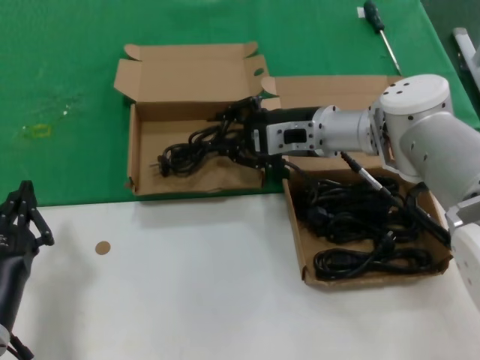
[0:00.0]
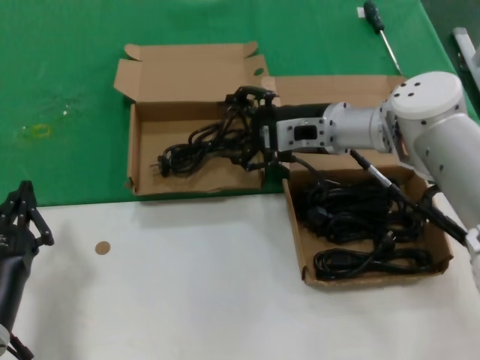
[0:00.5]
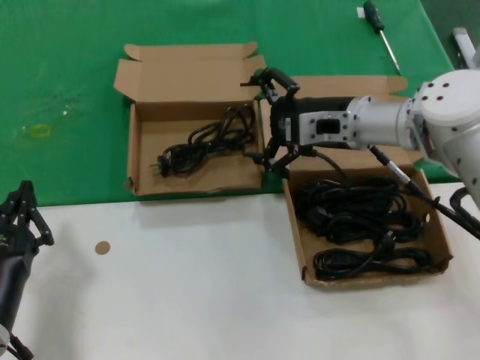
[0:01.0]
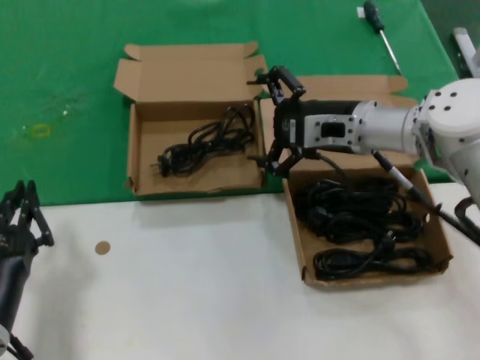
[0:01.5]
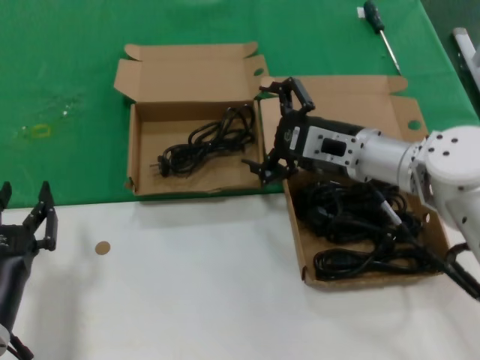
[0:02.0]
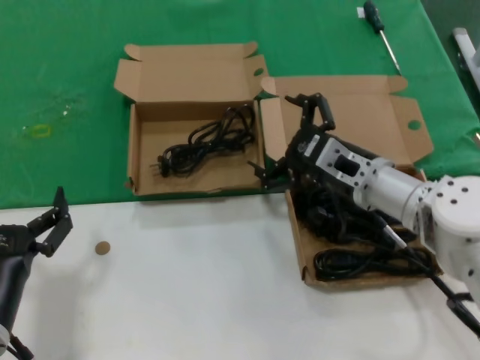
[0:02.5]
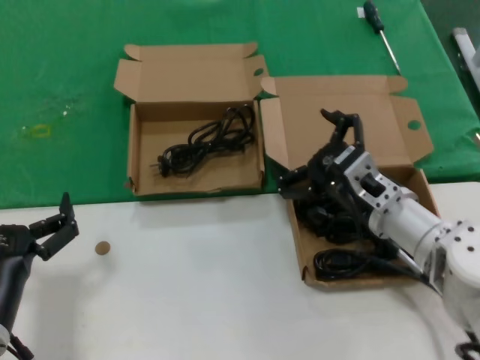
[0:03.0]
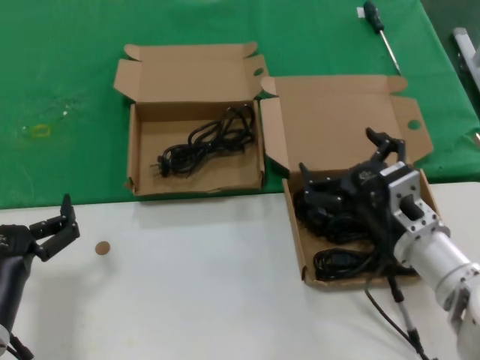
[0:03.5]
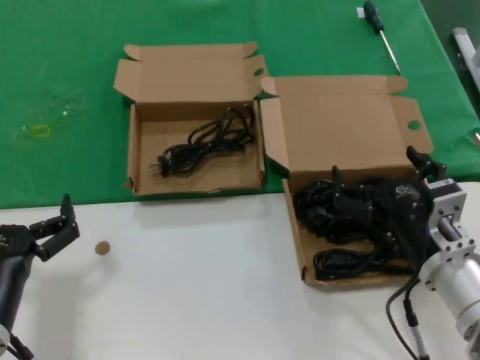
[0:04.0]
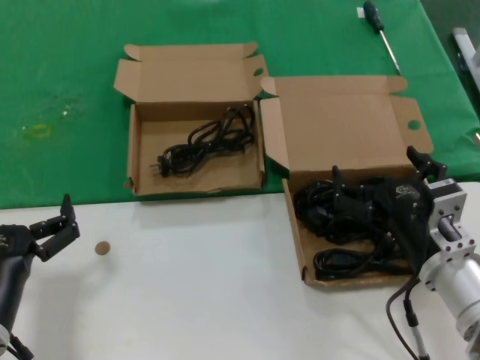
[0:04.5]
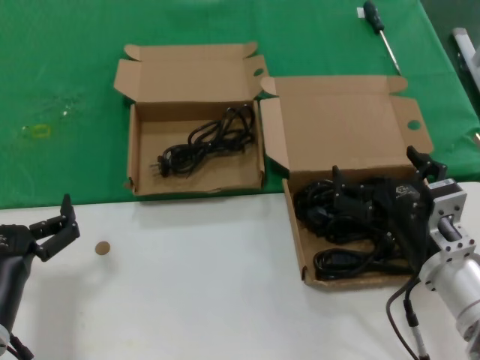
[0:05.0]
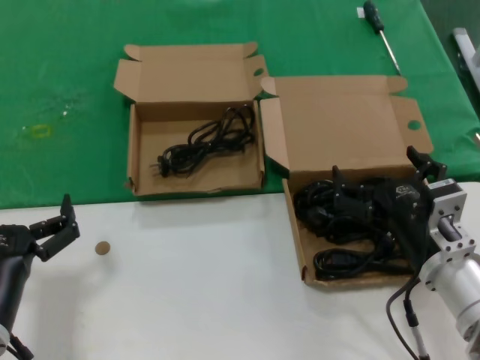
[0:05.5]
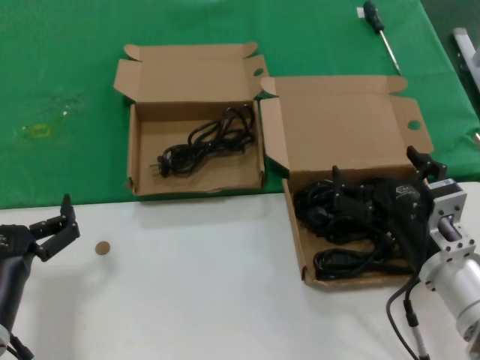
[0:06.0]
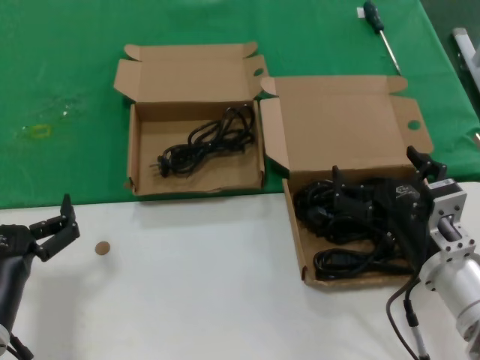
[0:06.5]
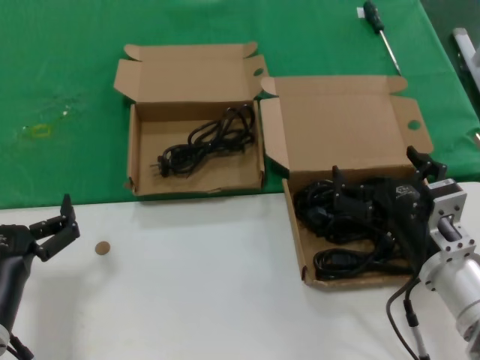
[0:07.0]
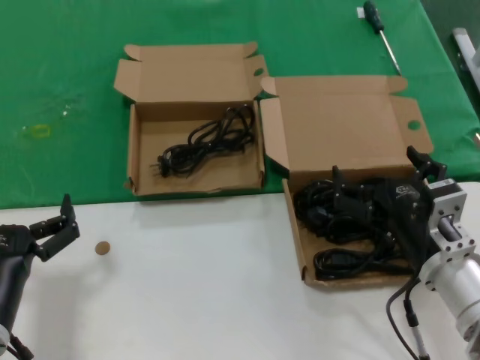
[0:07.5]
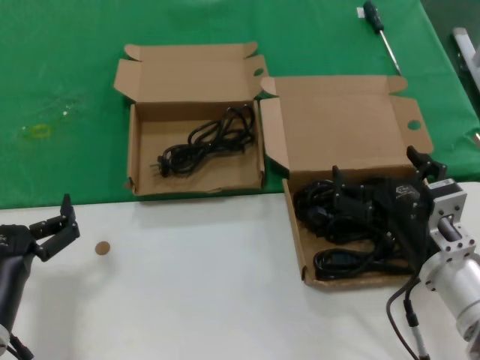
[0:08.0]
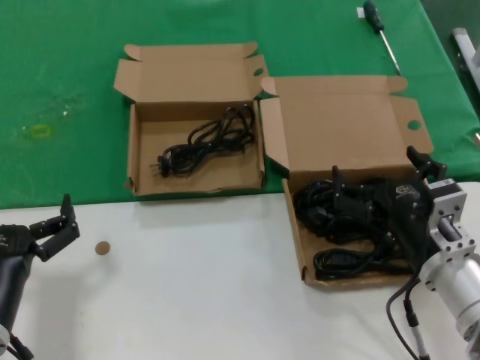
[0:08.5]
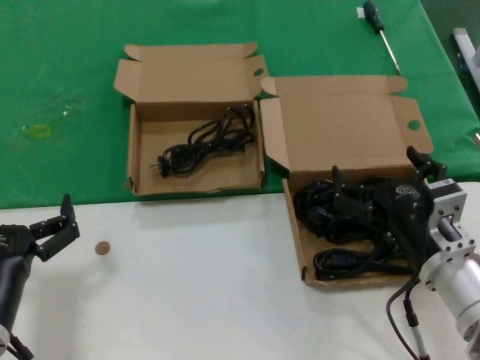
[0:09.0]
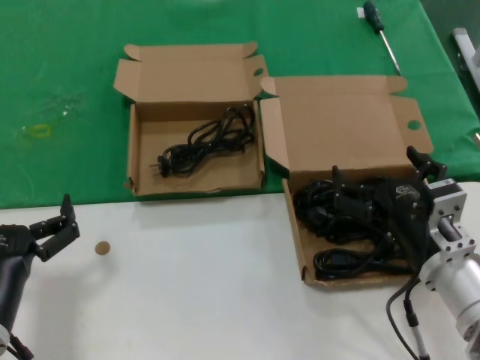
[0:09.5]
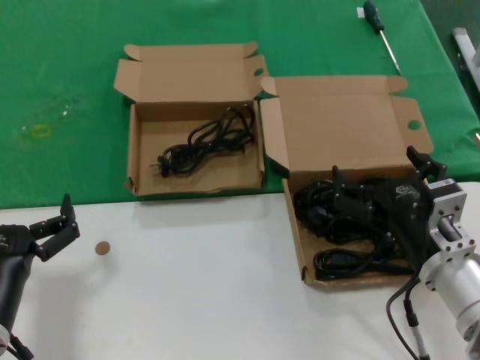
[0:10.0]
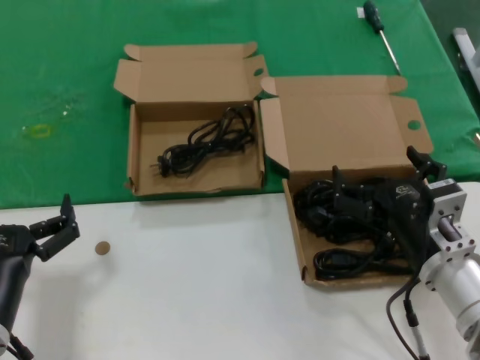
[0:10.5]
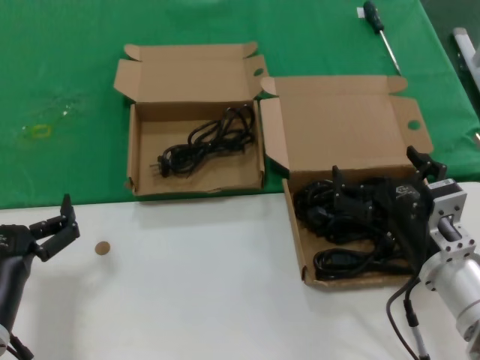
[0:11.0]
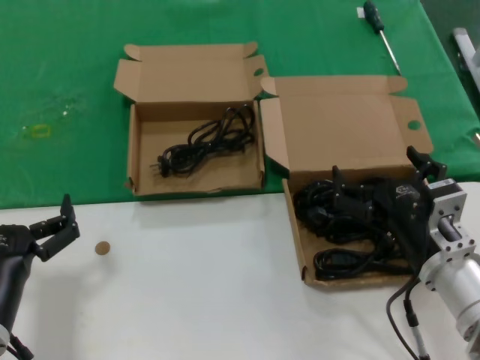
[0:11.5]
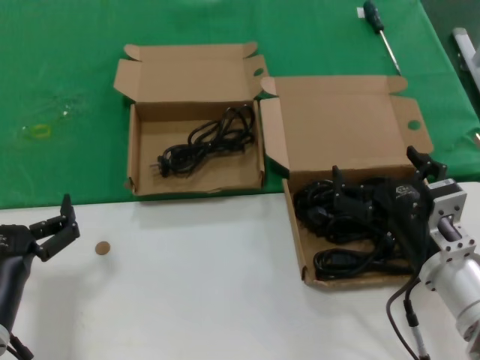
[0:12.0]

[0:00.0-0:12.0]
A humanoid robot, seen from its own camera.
Task of the whole recording: take the parts from the box containing them and put them into an empty box.
0:00.0 to 0:02.0: The right hand moves backward, roughly 5 cm.
0:02.0 to 0:04.0: The right hand heads backward and downward, covering about 20 cm.
0:04.0 to 0:12.0: The two hands keep their place.

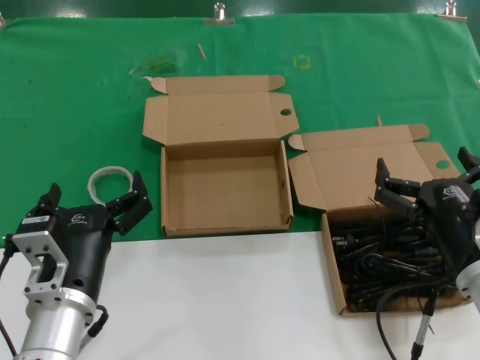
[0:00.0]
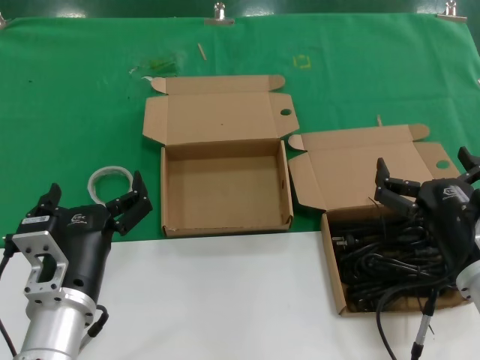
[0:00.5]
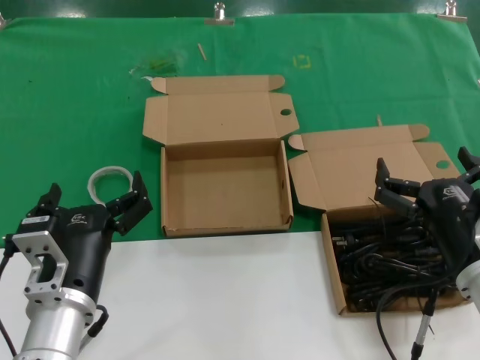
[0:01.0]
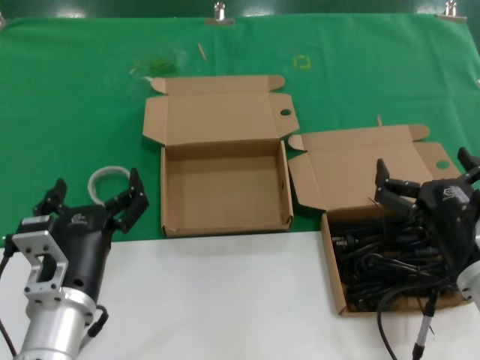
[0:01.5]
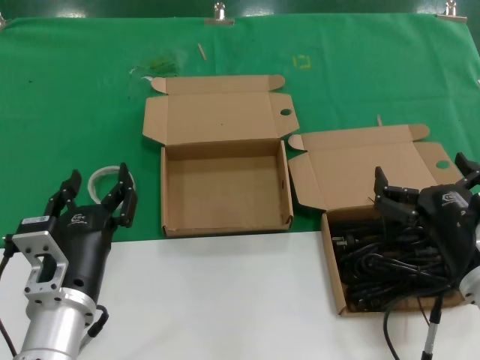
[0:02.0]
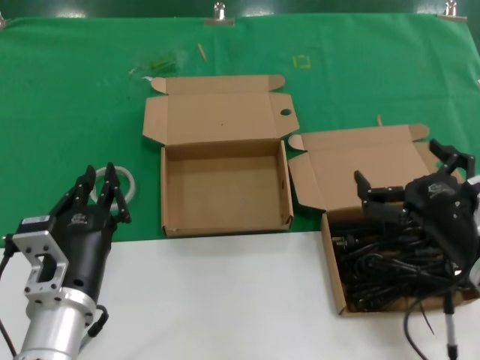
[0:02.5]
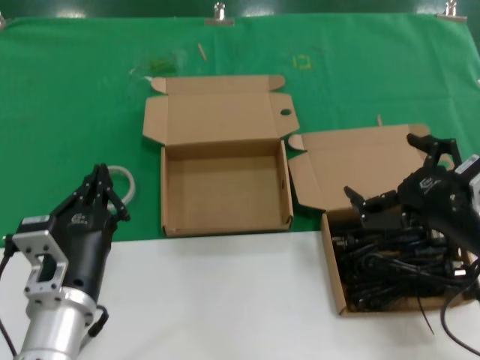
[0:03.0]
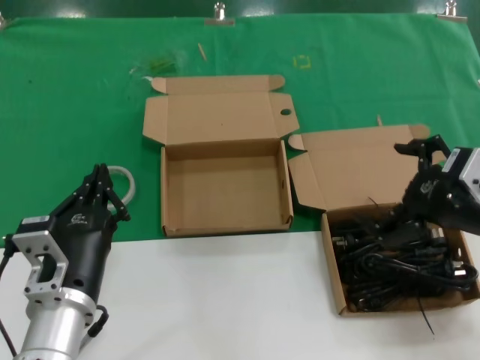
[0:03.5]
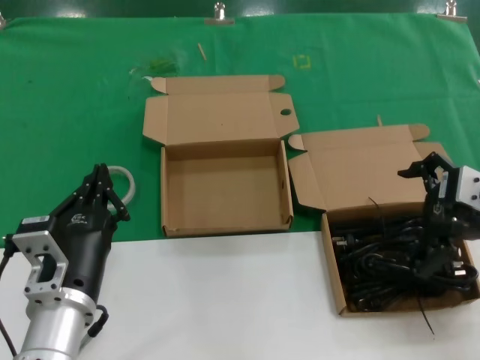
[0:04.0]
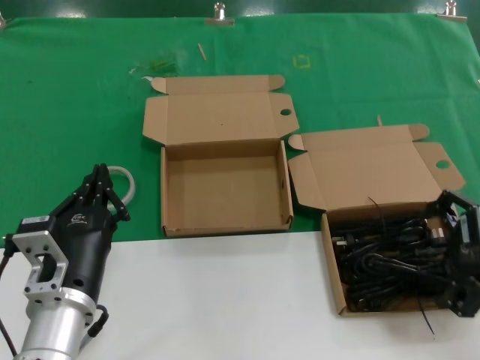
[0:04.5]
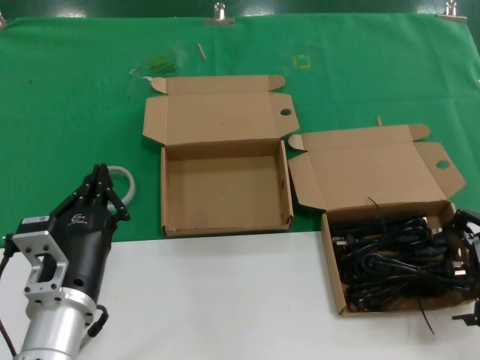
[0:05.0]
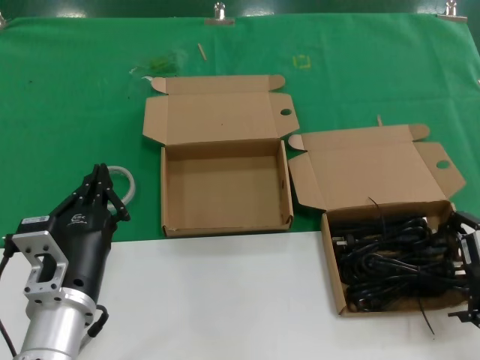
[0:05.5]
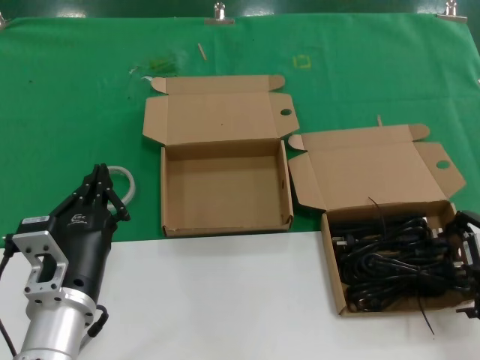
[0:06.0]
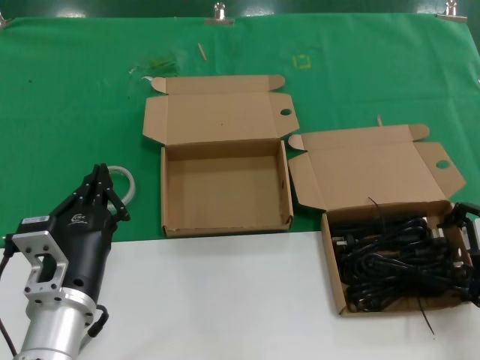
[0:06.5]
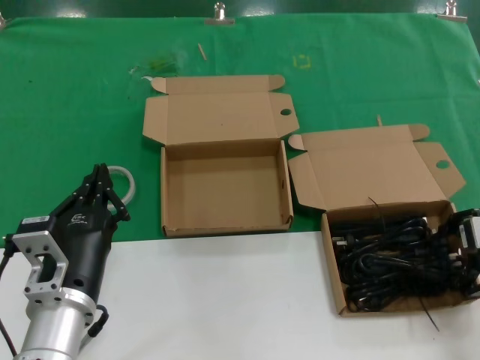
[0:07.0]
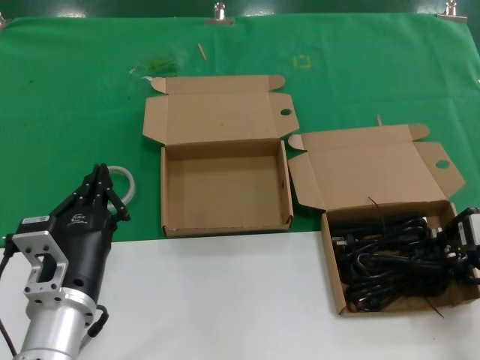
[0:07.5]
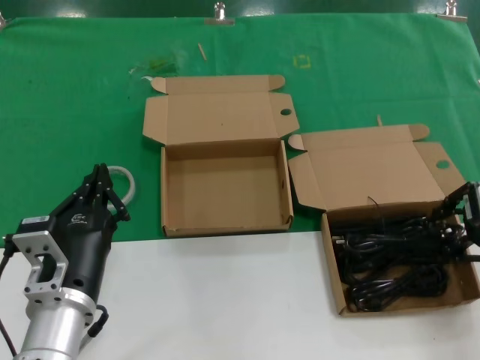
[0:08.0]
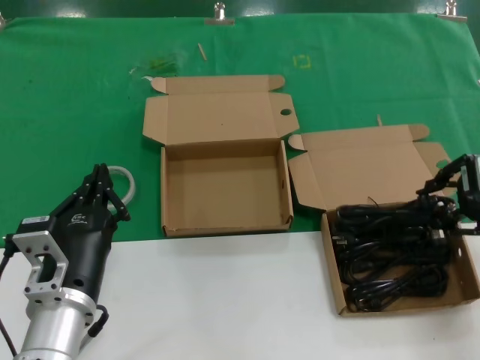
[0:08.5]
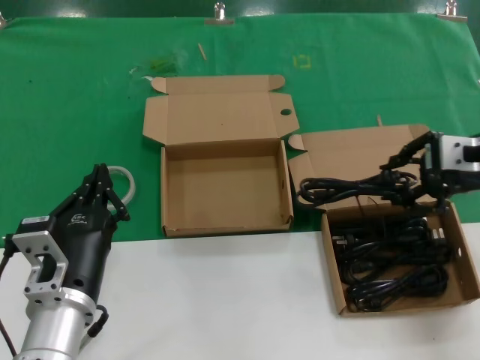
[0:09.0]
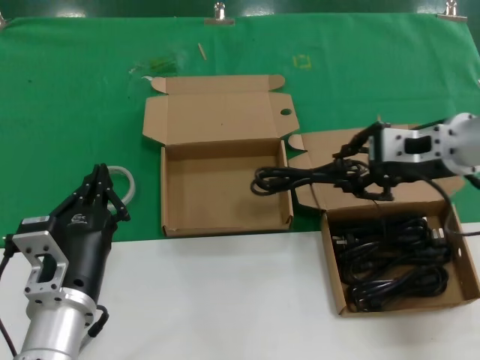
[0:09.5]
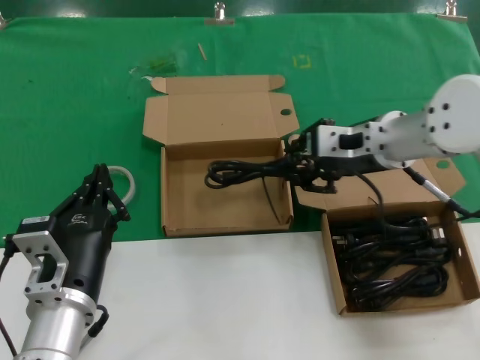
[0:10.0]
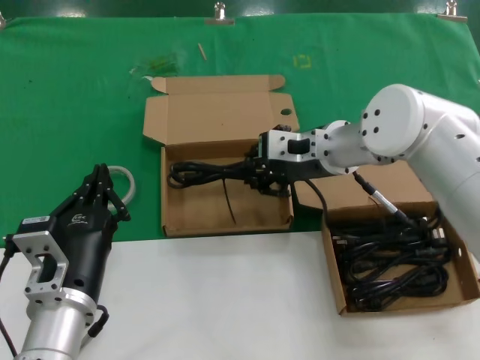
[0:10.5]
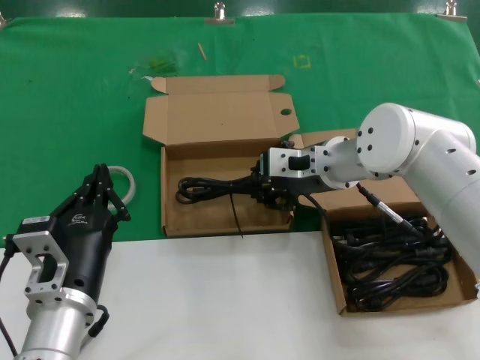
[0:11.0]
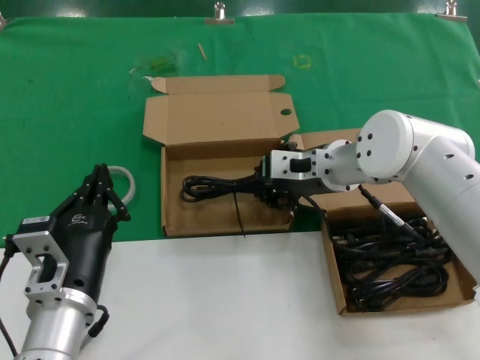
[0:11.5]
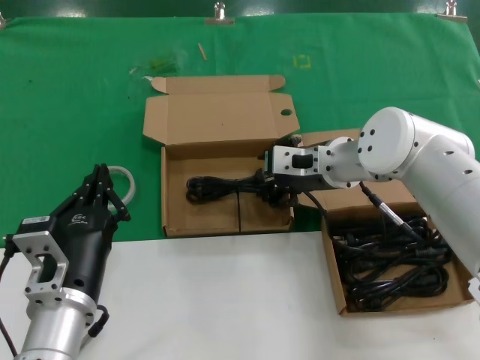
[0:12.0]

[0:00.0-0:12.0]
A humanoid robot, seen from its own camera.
Task of the whole recording: take the parts from the box containing them and put them into an empty box.
Step, 0:00.0 to 0:07.0: Grasp the data cable.
Step, 0:07.5 to 0:12.0: Place the data cable in the another box.
0:00.0 to 0:02.0: Both hands stay about where they are.
0:02.0 to 0:04.0: The right hand is displaced upward, to the right and forward by about 15 cm.
0:04.0 to 0:06.0: The right hand moves downward, approximately 5 cm.
0:06.0 to 0:08.0: There are only small adjustments of the hands.
0:08.0 to 0:10.0: The right hand goes about 20 cm to the left and forward.
0:10.0 to 0:12.0: The right hand goes about 10 cm downward and to the left.

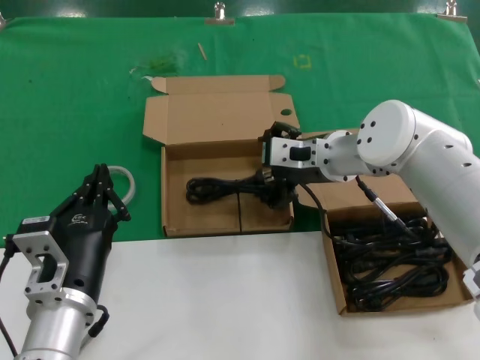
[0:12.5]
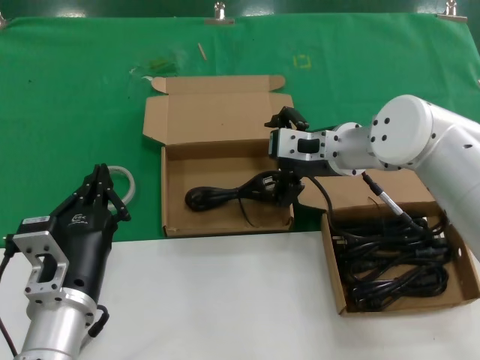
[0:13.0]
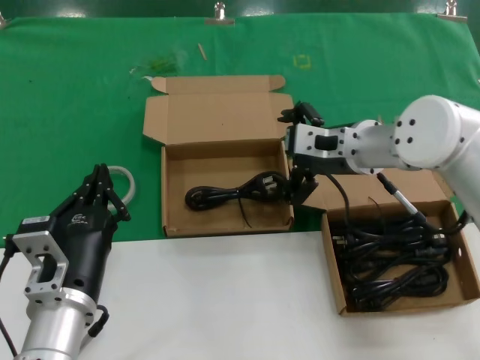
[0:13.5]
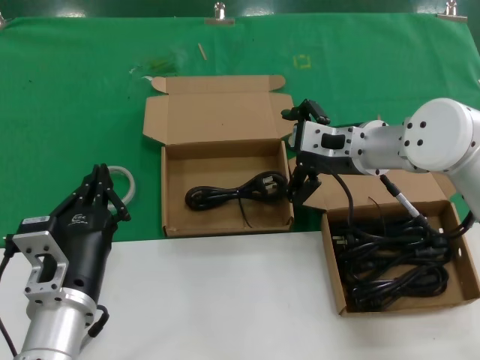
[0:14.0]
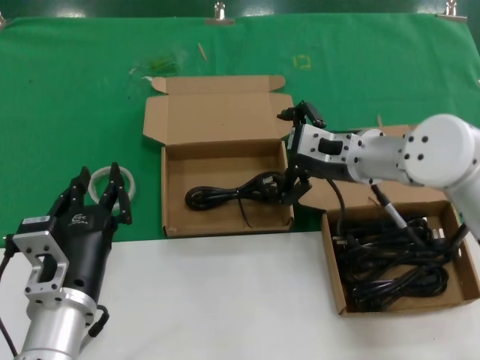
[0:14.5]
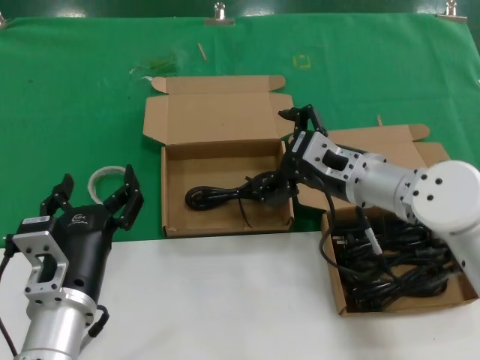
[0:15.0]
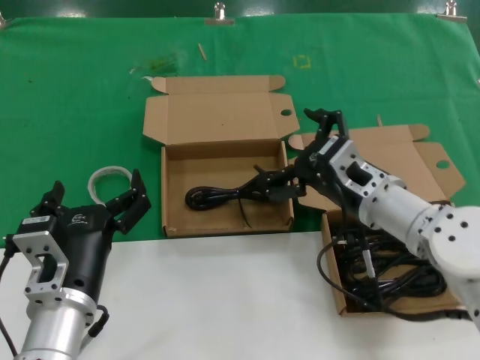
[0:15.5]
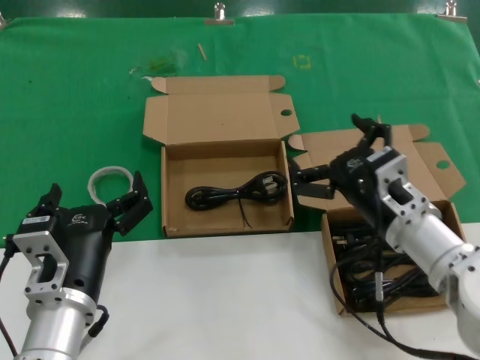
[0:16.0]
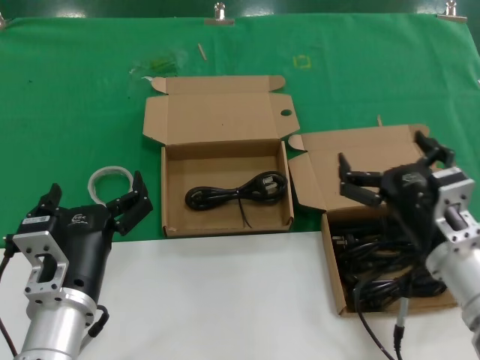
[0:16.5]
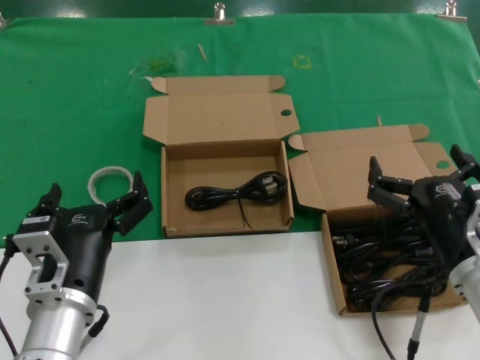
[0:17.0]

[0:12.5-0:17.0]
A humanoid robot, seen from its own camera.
Task of the whole recording: take the parts from the box containing them and put them into an empty box.
0:12.5 to 0:14.5: The right hand changes place by approximately 5 cm.
0:14.5 to 0:17.0: The right hand heads backward and downward, covering approximately 20 cm.
